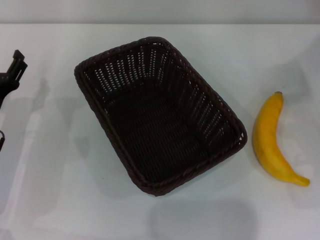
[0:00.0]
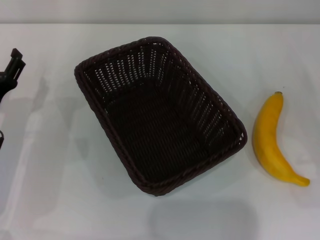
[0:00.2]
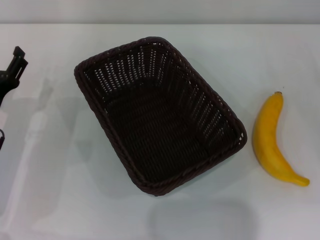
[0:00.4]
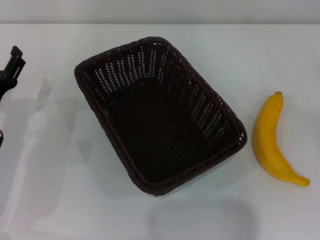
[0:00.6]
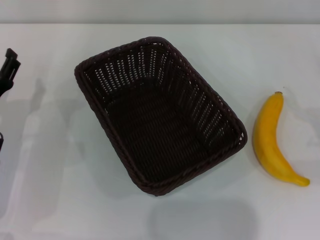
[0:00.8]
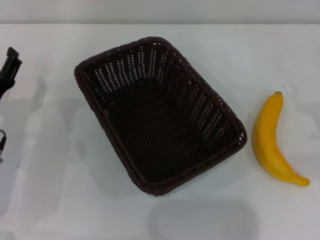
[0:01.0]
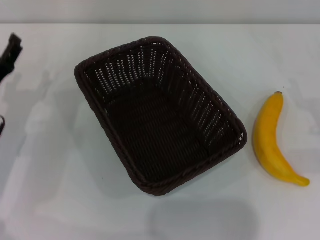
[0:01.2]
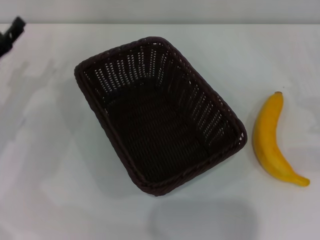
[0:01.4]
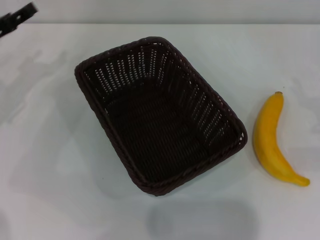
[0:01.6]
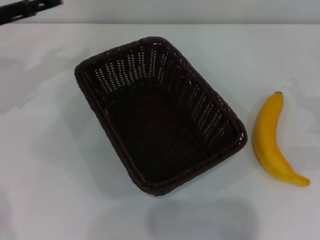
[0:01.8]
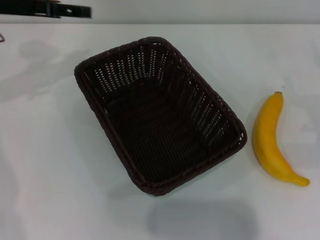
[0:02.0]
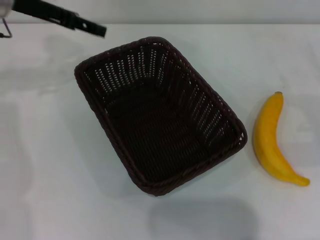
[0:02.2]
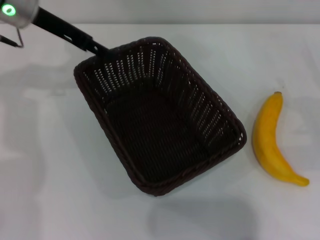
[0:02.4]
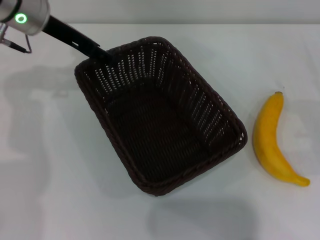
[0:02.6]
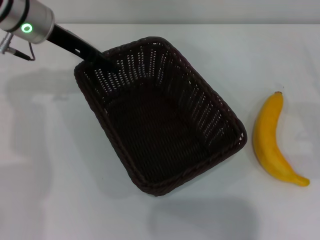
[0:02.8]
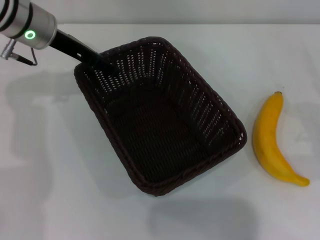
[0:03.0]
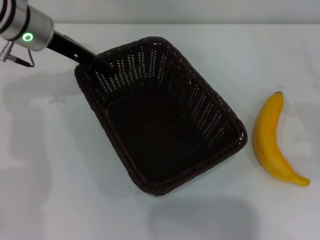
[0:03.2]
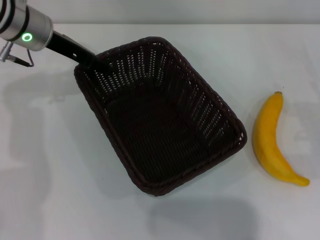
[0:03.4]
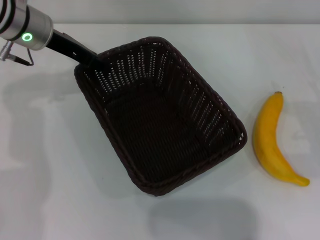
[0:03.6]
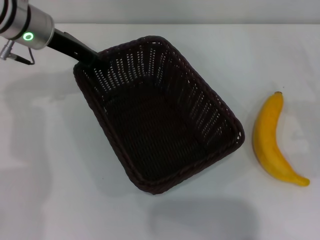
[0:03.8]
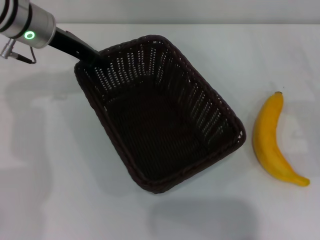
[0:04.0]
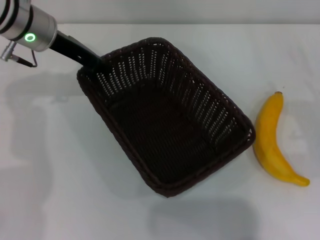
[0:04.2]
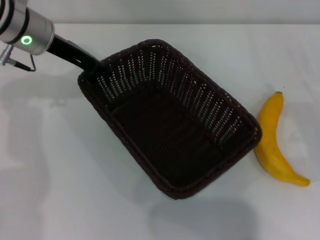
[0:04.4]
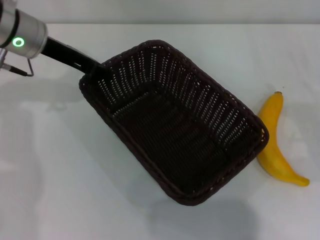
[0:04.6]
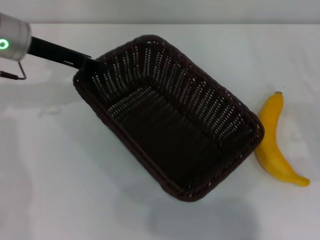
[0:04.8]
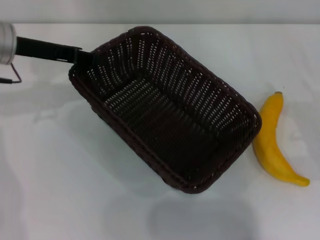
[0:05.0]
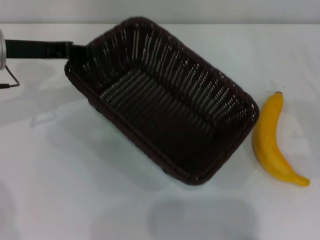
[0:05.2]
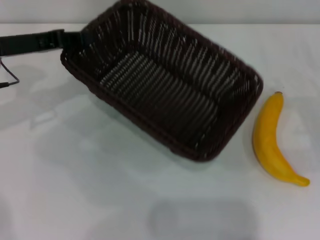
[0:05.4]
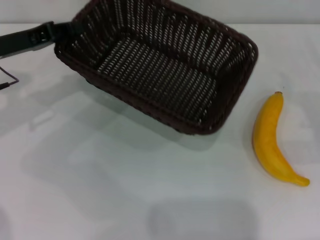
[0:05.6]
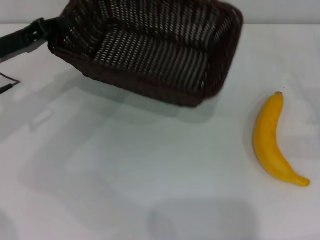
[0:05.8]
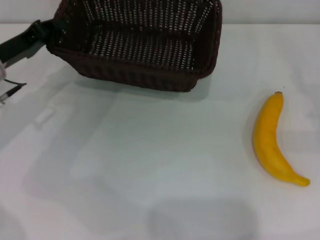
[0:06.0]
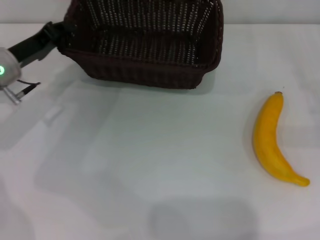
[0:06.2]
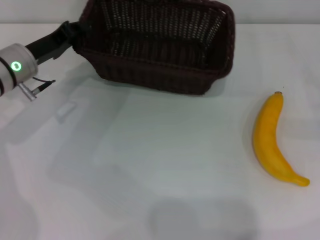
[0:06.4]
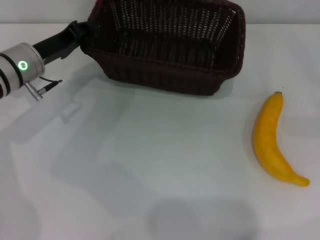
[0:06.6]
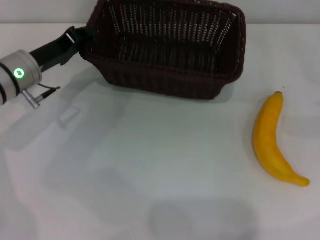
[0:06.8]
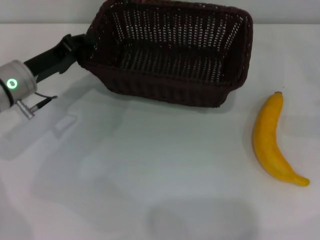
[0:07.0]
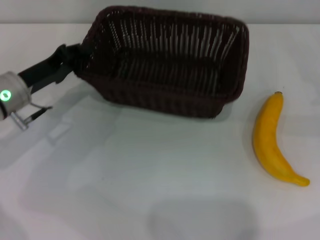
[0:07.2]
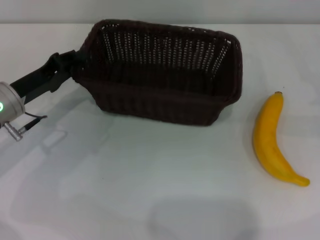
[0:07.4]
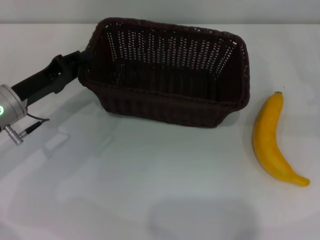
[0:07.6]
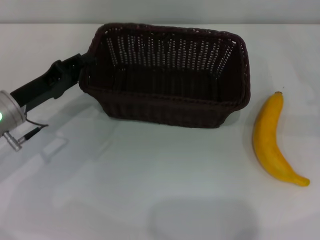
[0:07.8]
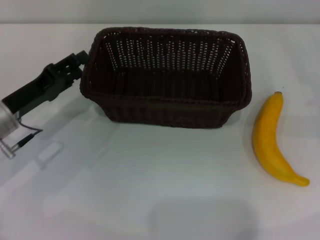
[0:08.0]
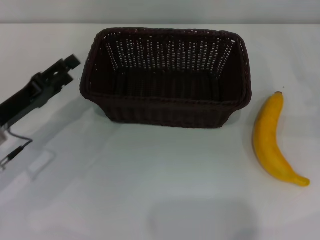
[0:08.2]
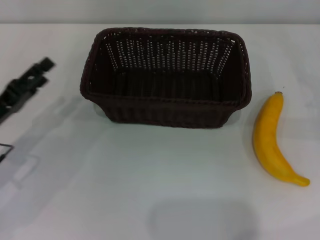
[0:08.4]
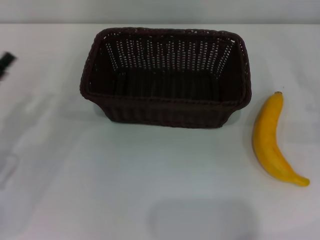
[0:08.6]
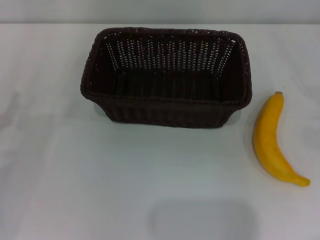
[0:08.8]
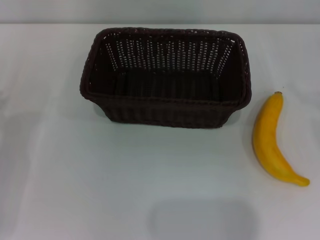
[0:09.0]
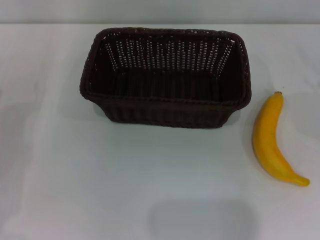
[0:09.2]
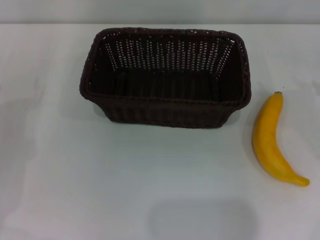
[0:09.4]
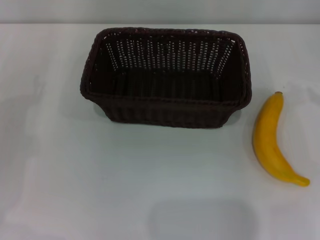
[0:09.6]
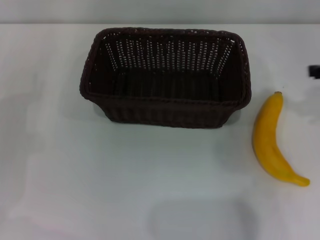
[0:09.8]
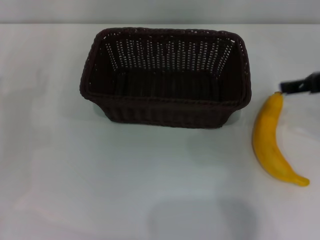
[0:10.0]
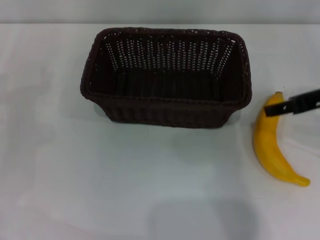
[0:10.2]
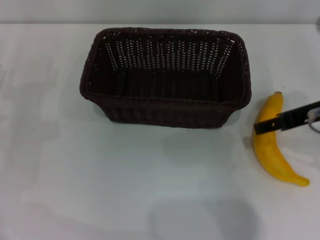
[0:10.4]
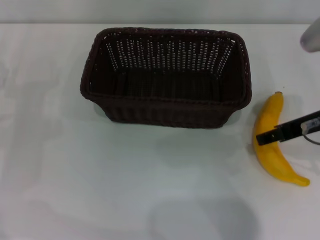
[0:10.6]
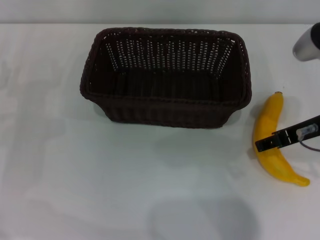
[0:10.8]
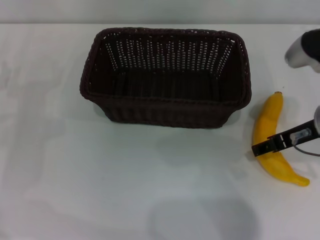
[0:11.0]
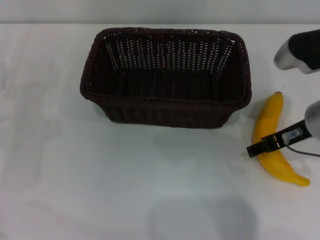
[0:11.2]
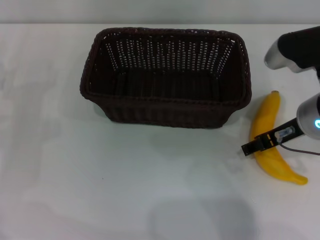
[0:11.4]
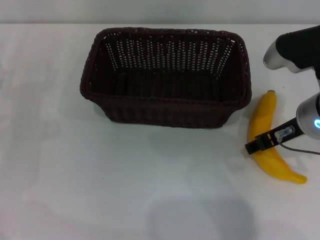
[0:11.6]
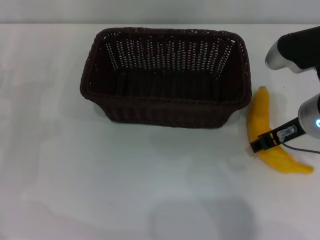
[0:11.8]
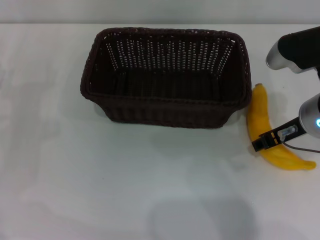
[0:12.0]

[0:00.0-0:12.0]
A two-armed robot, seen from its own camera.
Step, 0:00.0 to 0:04.6: Pick up the dark basket with the left gripper.
Step, 0:04.8 to 0:07.8: Place the dark basket in the center of view with the left gripper.
0:00.0 to 0:01.6: The right gripper moves forward, some 5 cm; the left gripper travels forward and upward by roughly 15 cm.
0:01.6 to 0:03.0: The left gripper goes roughly 15 cm to the right, upward and forward.
0:03.0 to 0:04.4: The left gripper closes its fingers.
0:04.4 to 0:06.0: The right gripper changes place by about 5 cm, while the left gripper travels to the left, downward and backward by approximately 10 cm.
0:06.0 to 0:07.6: The left gripper ends up about 5 cm from where it was.
0:07.6 to 0:09.0: The left gripper moves to the left and backward, about 10 cm, and opens its fingers.
0:09.0 to 0:10.4: The right gripper goes some 25 cm to the left and upward.
0:10.4 to 0:12.0: The right gripper is displaced downward by some 5 cm, and closes its fingers.

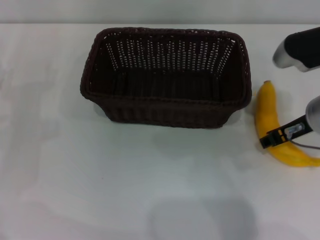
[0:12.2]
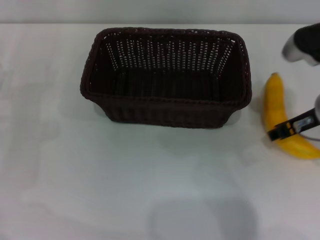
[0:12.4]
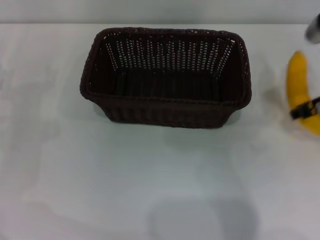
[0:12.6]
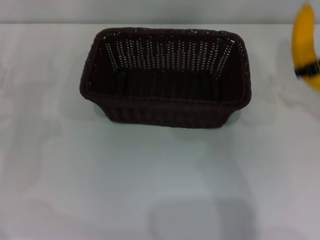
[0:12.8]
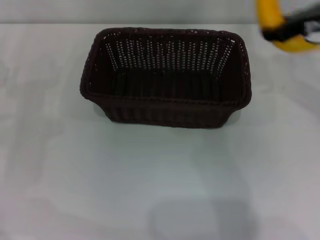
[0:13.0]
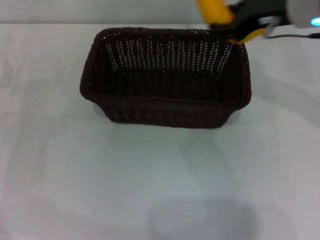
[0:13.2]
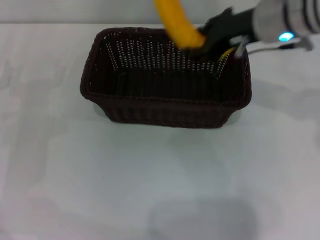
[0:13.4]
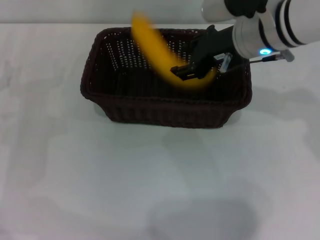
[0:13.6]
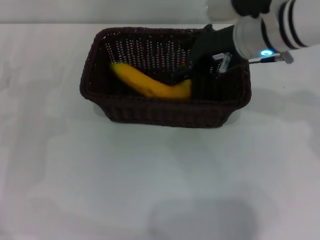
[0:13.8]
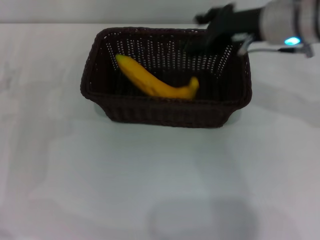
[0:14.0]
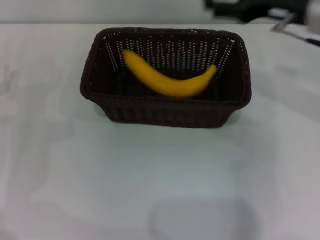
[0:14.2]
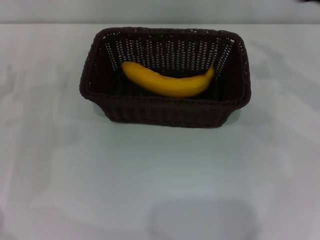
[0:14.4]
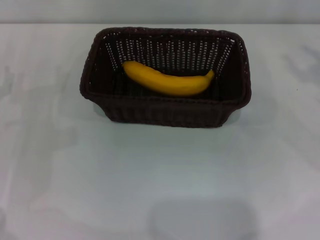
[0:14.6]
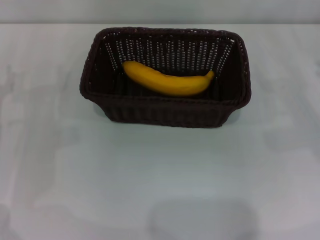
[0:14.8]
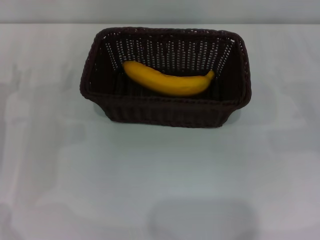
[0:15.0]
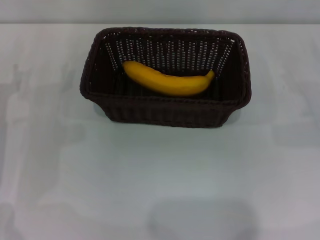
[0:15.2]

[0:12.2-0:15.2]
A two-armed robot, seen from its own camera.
Step, 0:12.6 to 0:13.8: Place the banana into the dark basket with the right gripper.
0:12.2 to 0:13.8: The right gripper goes roughly 10 cm to the left, forward and upward.
0:13.8 to 0:15.2: The right gripper shifts some 30 cm to the right and downward, and opens.

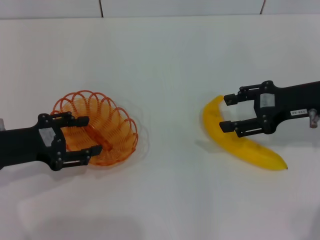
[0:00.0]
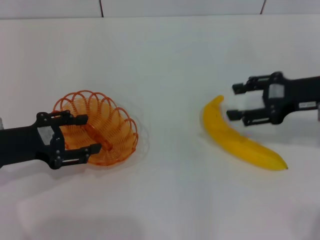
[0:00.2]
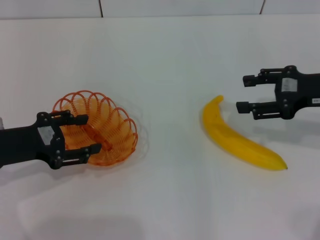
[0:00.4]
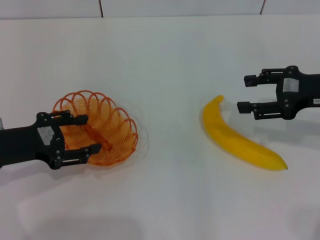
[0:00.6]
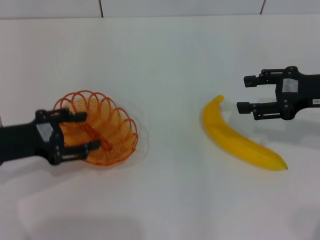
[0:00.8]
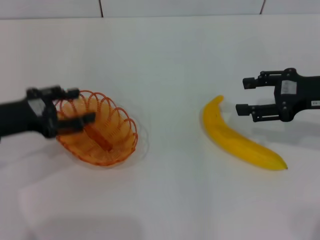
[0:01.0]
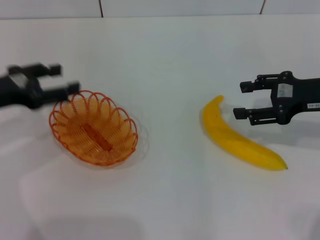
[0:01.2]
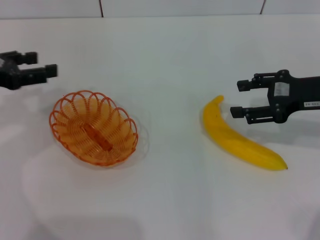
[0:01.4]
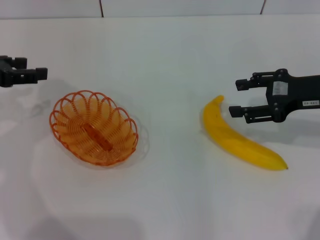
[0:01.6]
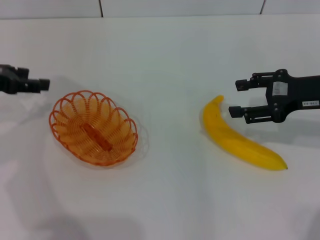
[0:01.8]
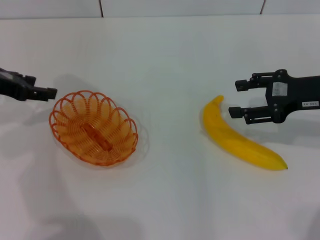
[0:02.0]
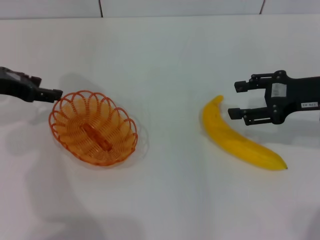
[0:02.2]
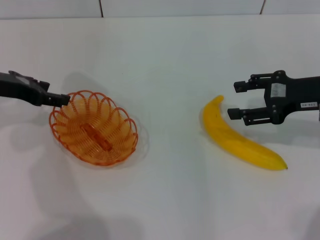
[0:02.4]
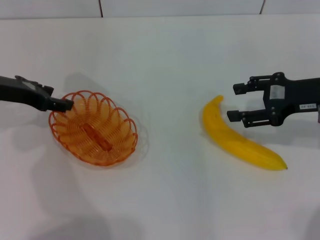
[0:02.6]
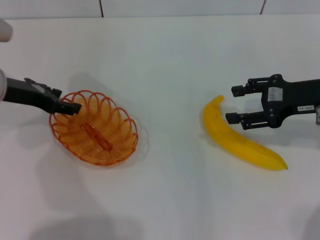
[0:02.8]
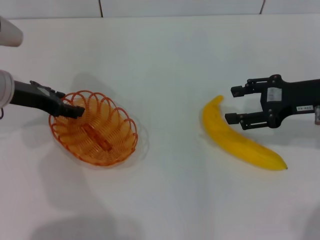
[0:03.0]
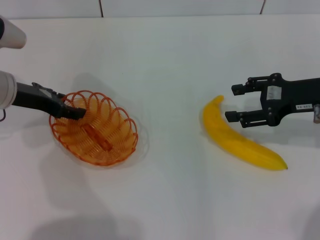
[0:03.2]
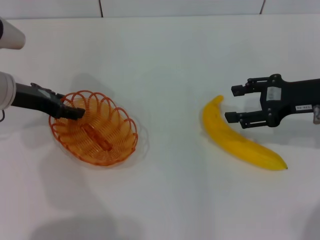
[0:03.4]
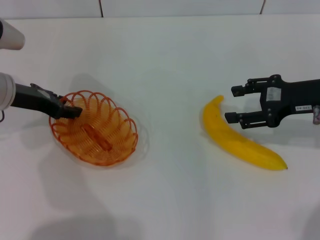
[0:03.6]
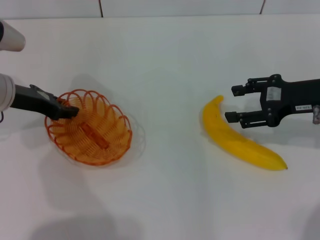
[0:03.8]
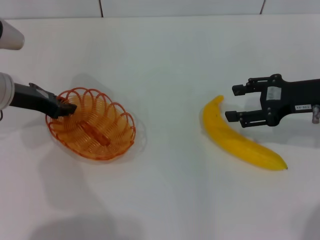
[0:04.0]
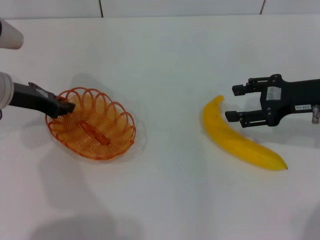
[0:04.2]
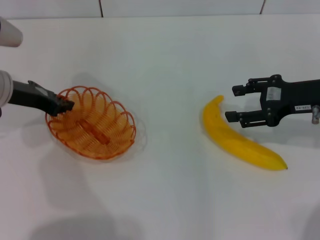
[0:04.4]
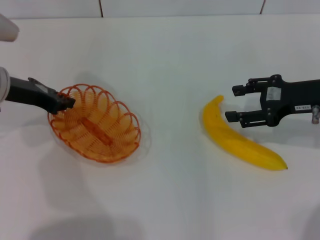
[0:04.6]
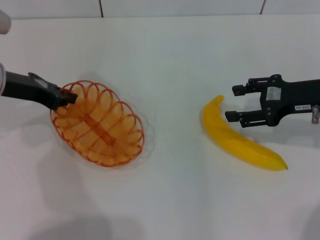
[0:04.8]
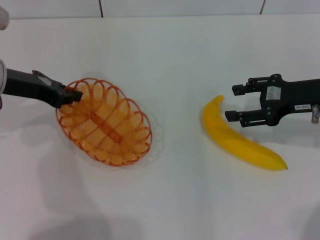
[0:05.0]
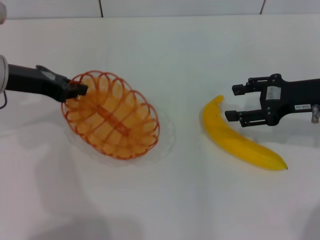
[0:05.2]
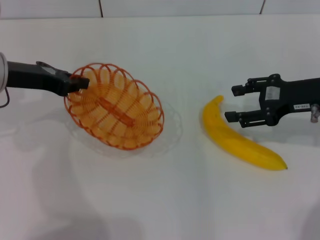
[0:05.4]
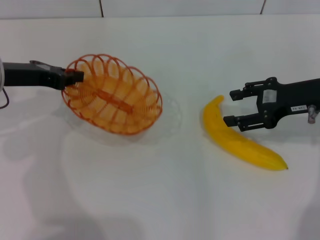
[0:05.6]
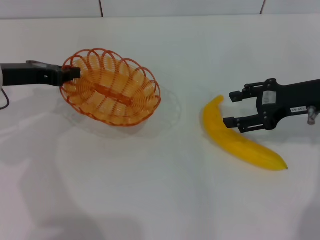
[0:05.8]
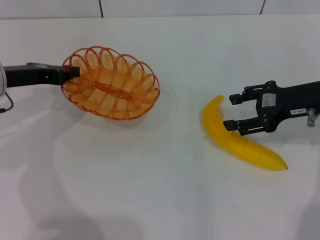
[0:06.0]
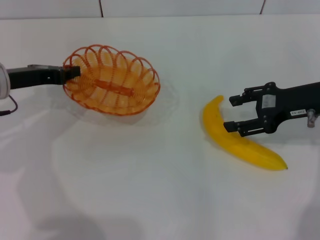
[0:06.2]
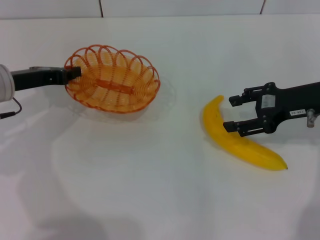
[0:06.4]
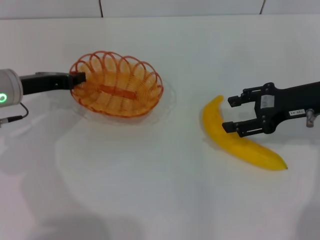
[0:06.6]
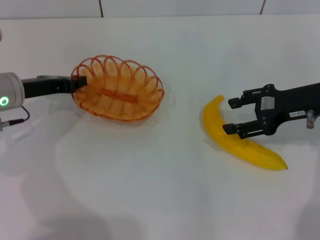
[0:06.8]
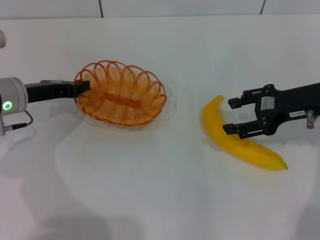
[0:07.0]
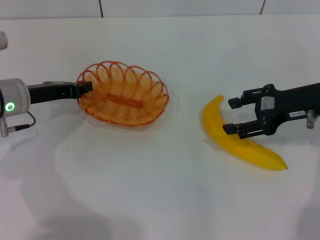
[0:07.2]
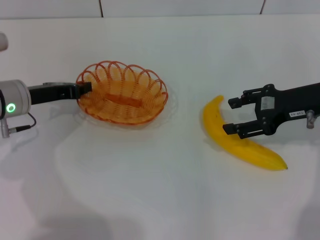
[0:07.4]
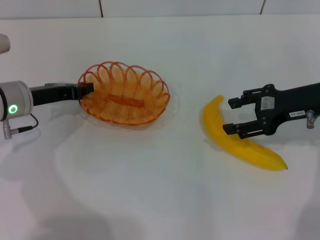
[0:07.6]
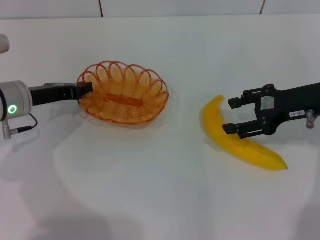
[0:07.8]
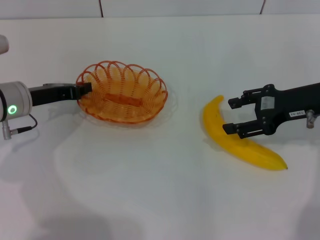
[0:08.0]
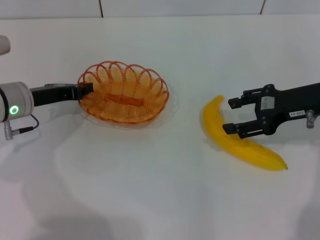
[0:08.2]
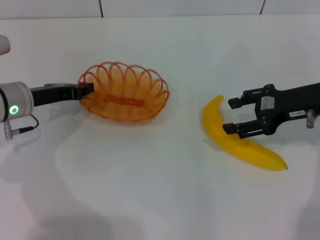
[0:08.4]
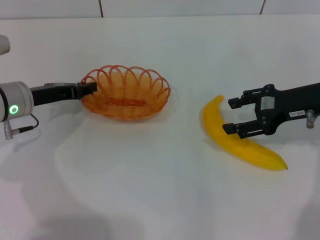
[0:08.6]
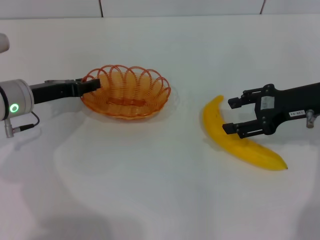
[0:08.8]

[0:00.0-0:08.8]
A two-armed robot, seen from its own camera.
Step, 0:00.0 to 0:05.0: Pick up the basket with the left gripper.
0:00.0 to 0:01.4: The left gripper is displaced upward and forward by approximately 10 cm.
0:01.4 to 0:03.0: The left gripper moves to the right and forward, approximately 10 cm.
0:03.0 to 0:04.4: The left gripper closes up.
0:05.8 to 0:07.4: The left gripper heads downward, covering some 5 cm.
0:07.4 to 0:08.8: The left gripper opens its fingers.
